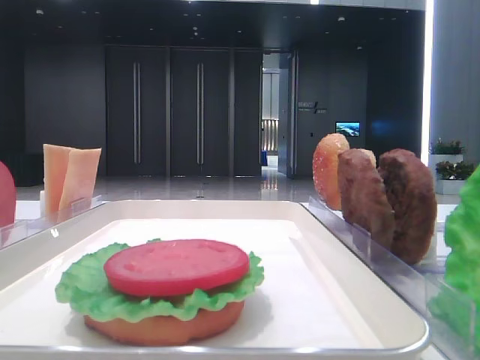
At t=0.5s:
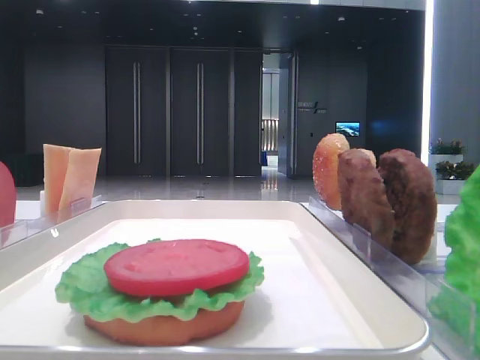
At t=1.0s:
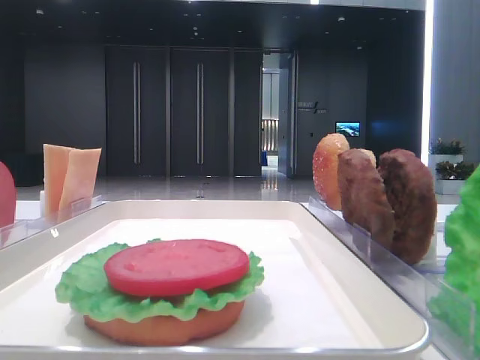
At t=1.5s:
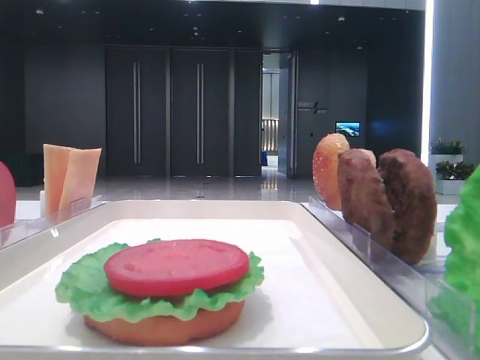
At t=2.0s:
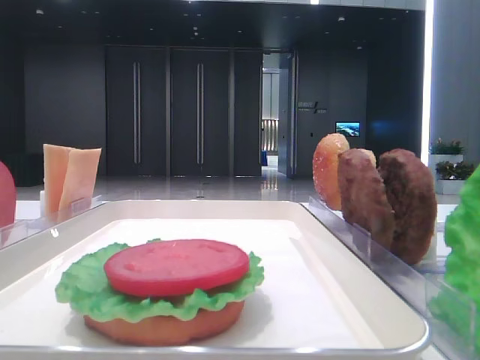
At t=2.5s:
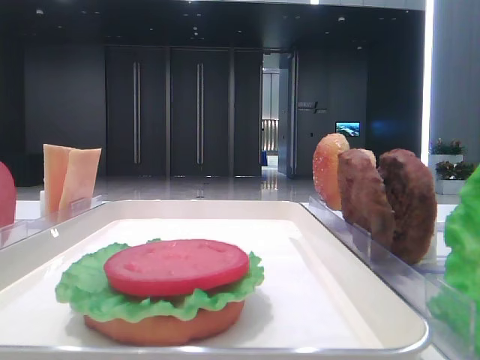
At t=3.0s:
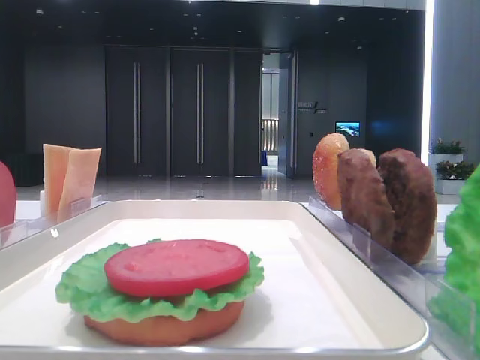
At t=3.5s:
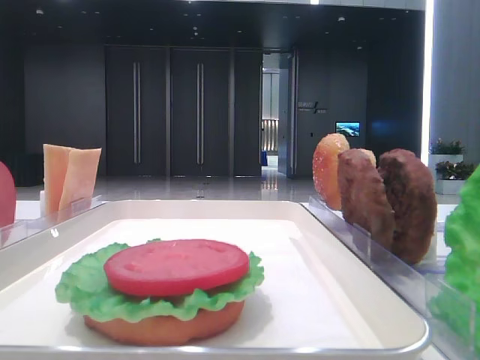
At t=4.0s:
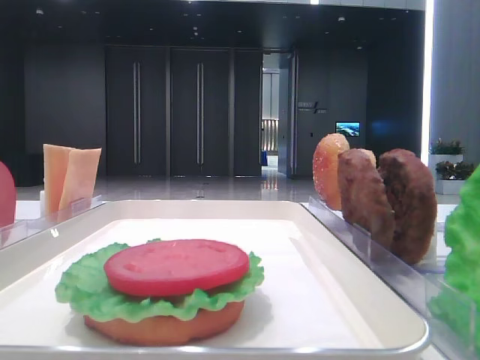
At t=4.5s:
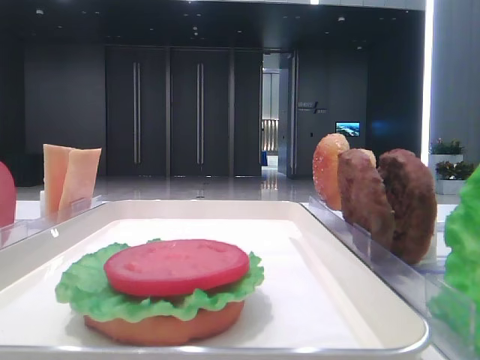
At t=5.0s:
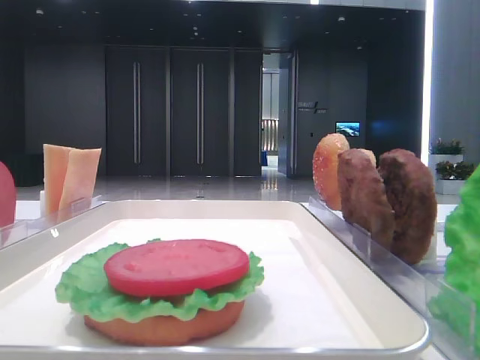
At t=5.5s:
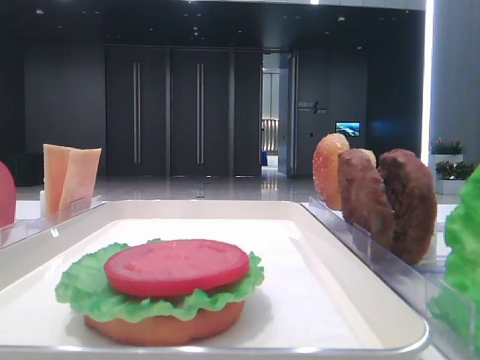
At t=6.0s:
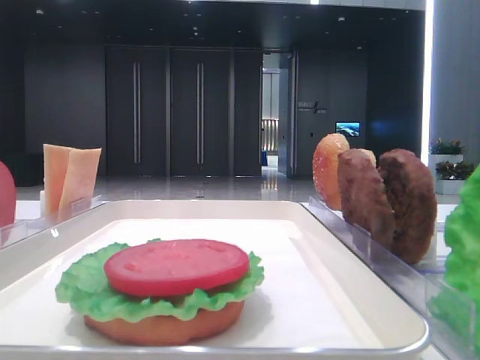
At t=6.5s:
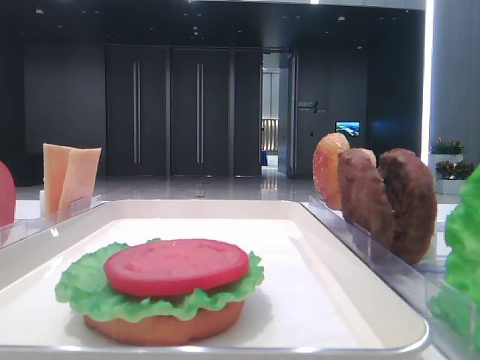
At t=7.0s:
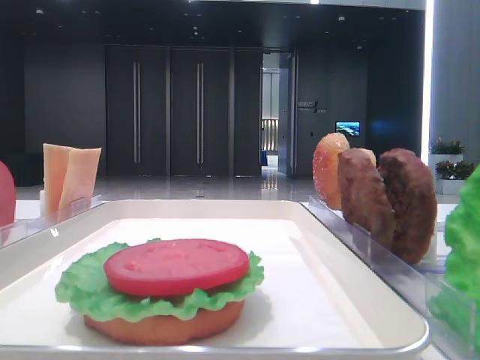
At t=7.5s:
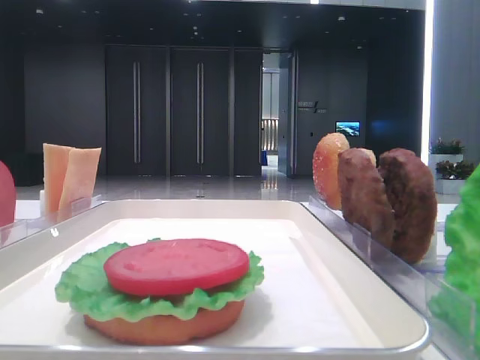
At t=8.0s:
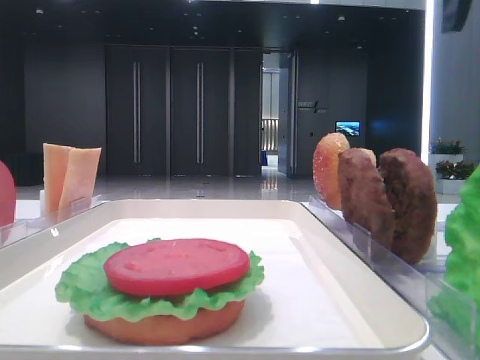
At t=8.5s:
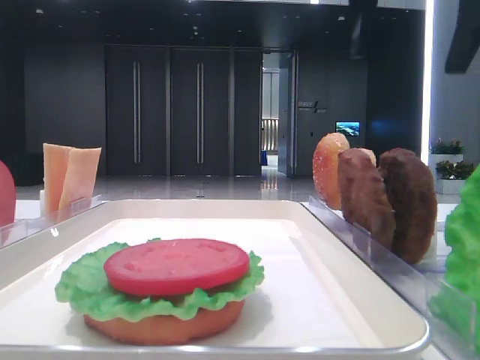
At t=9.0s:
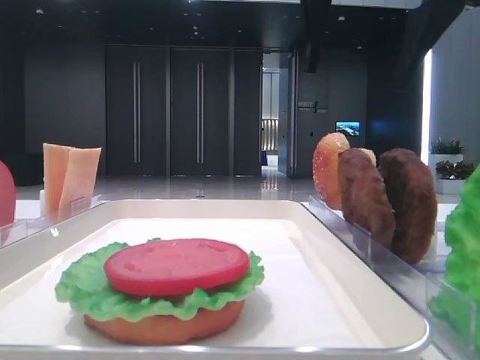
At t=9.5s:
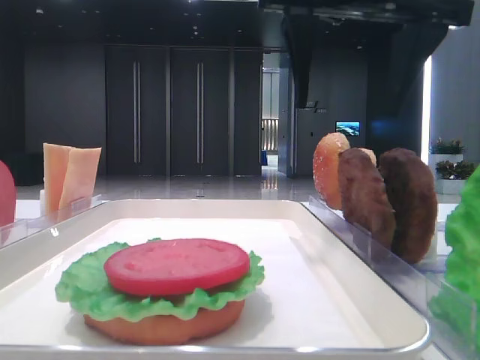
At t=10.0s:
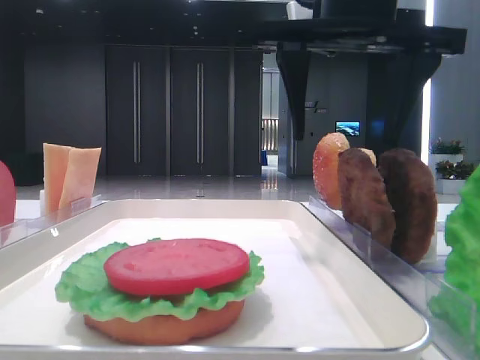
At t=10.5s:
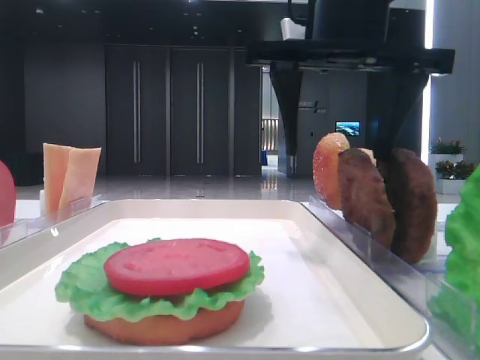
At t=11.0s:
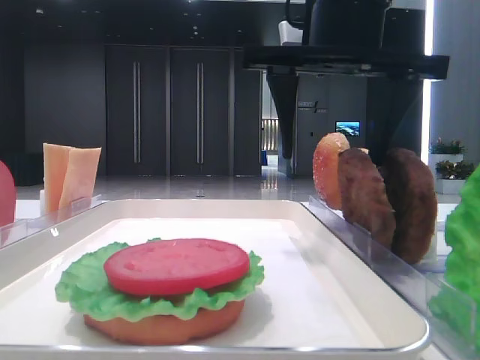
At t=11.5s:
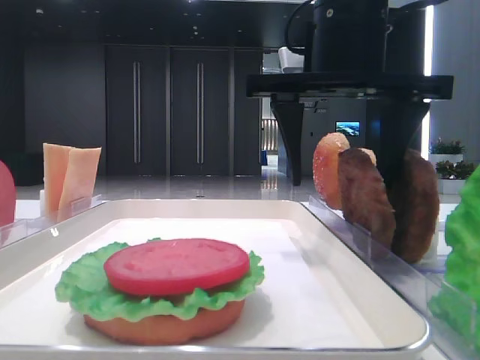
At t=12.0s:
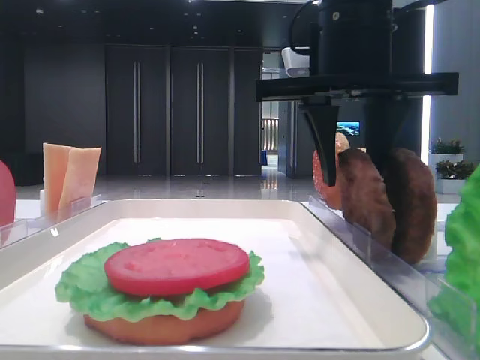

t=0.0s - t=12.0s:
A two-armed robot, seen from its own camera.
t=2.0s - t=4.0s: Both grippers stay put.
t=6.0s - t=8.0s: The right gripper shifts approximately 20 cm forward.
t=8.0s - t=10.0s: The right gripper shifts about 15 cm to the left and downward.
t=10.0s - t=12.0s: The right gripper closes.

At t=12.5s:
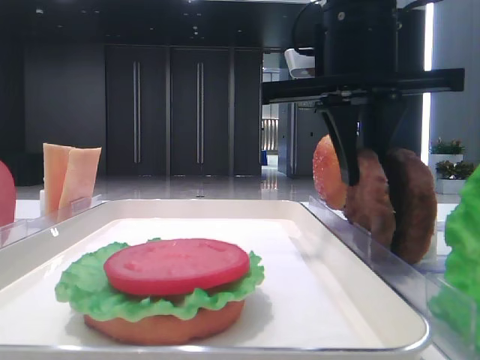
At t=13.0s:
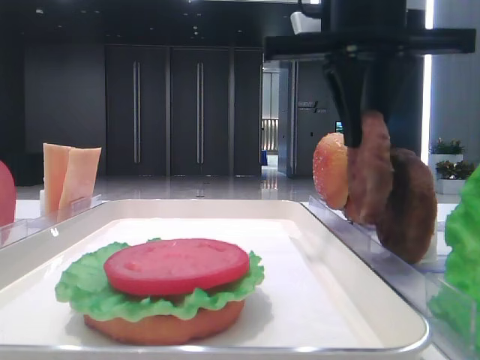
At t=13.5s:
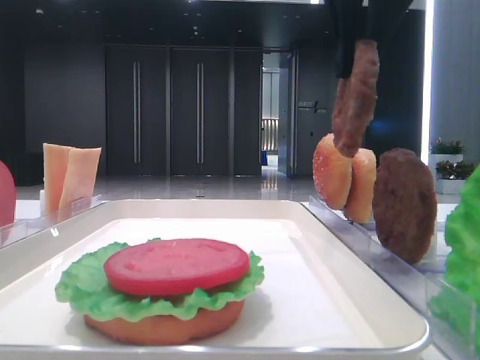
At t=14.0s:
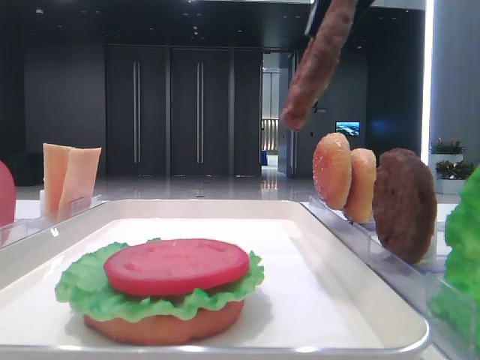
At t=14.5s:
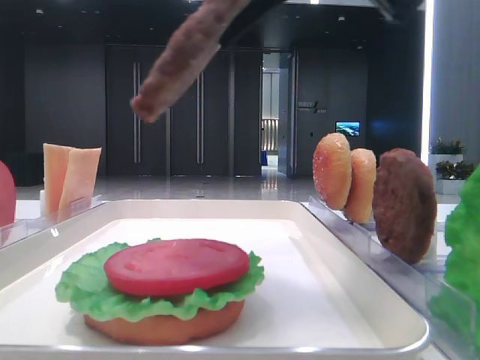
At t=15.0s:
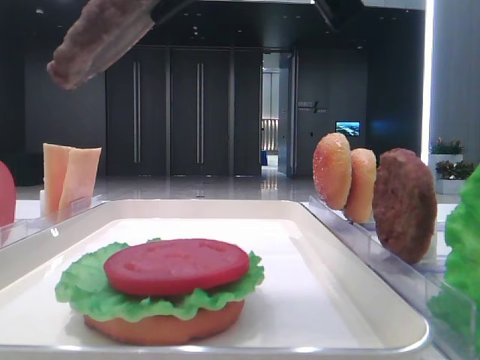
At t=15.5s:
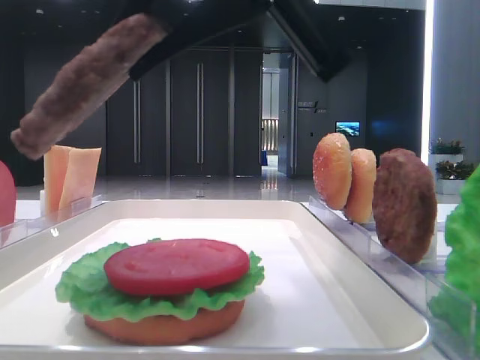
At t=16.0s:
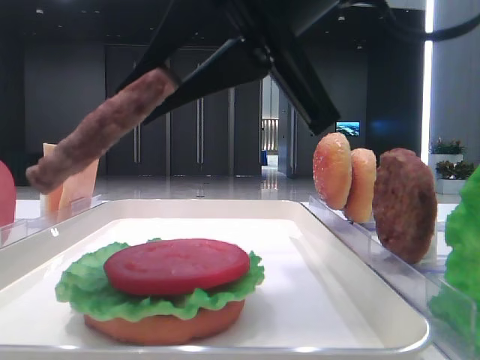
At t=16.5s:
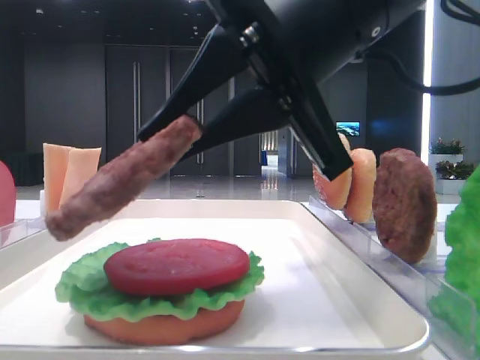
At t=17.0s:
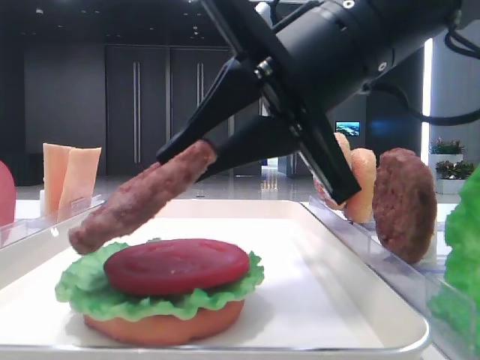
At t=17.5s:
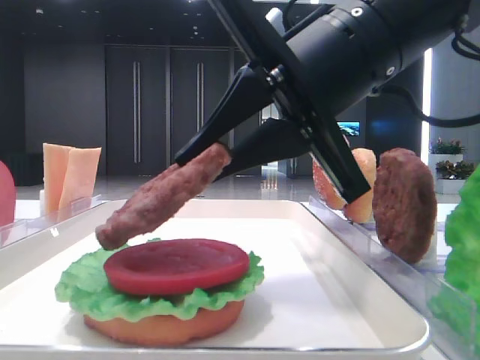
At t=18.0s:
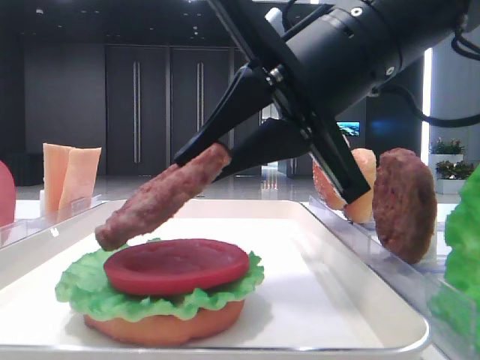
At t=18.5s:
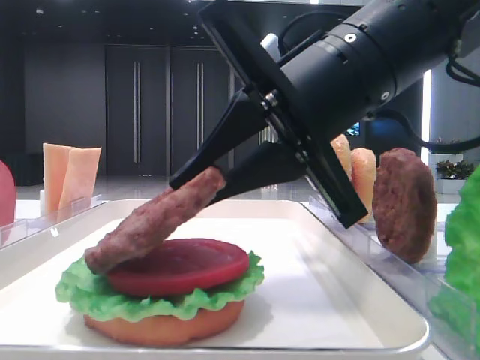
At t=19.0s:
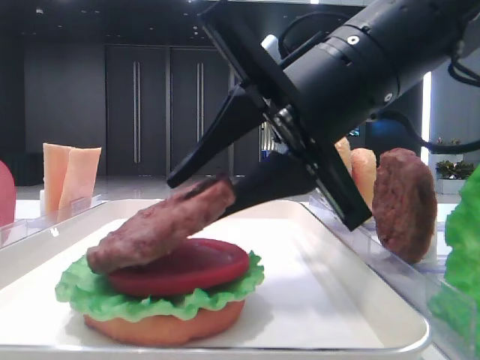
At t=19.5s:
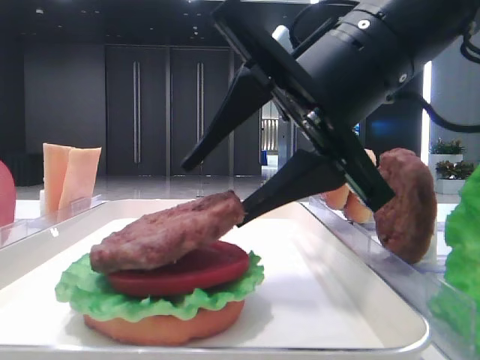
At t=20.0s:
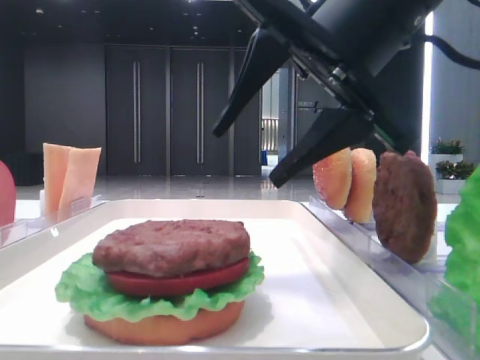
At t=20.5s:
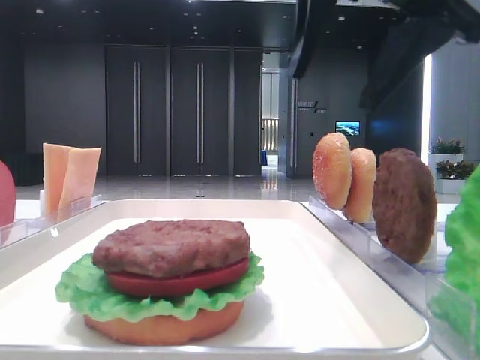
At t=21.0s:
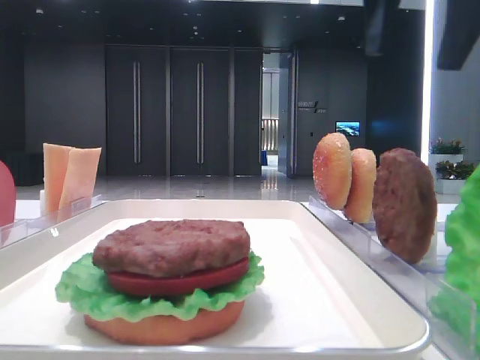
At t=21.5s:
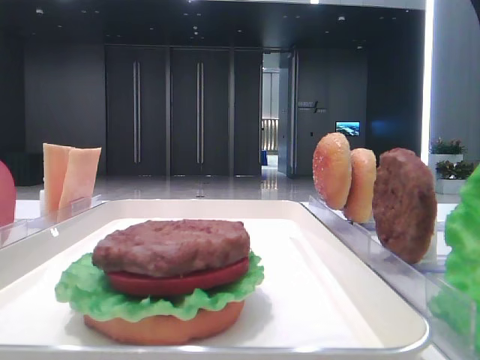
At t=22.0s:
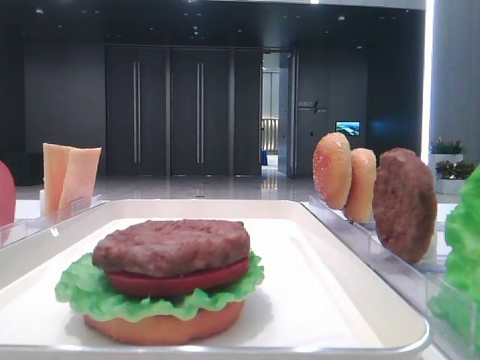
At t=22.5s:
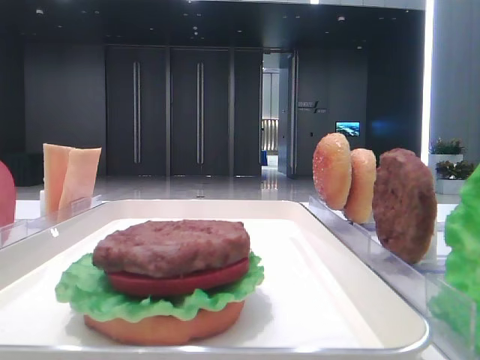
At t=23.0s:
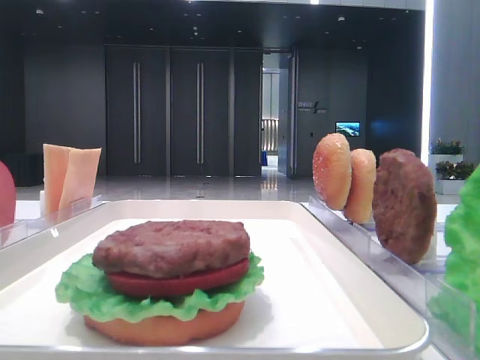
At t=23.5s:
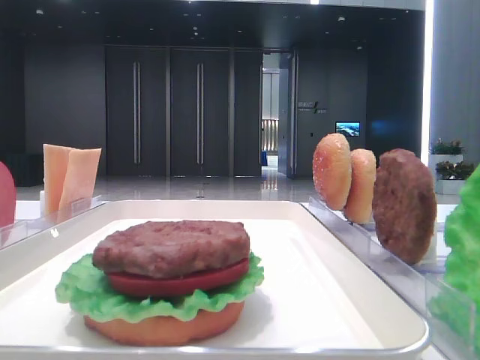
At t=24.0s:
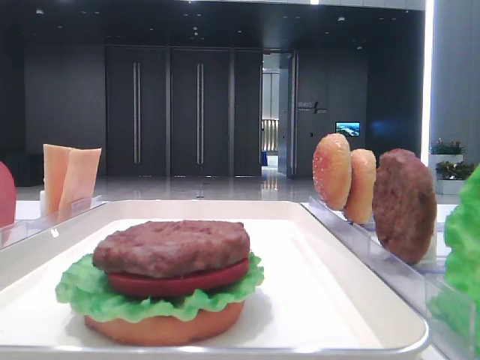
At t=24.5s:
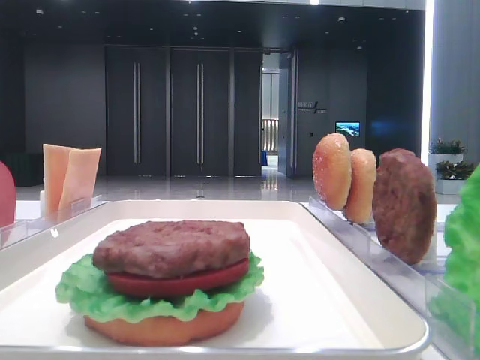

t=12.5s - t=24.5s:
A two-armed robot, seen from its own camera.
Step, t=13.0s - t=19.5s: Place the patty on the tomato slice with the right hand.
t=12.5s - t=14.5s: The right gripper travels backward and upward by roughly 15 cm.
t=14.5s - t=16.5s: The right gripper is displaced downward by about 10 cm.
t=18.5s - t=20.5s: The right gripper goes roughly 10 cm upward, and opens its fingers.
t=20.5s - t=22.5s: The right gripper heads to the right, backward and upward, covering some 20 cm.

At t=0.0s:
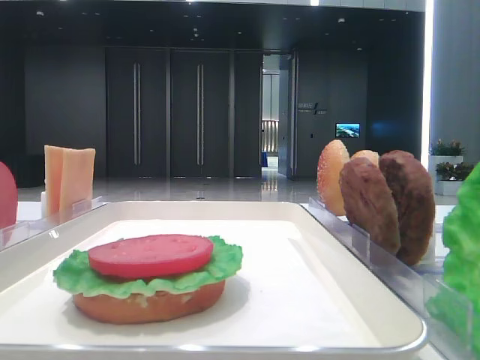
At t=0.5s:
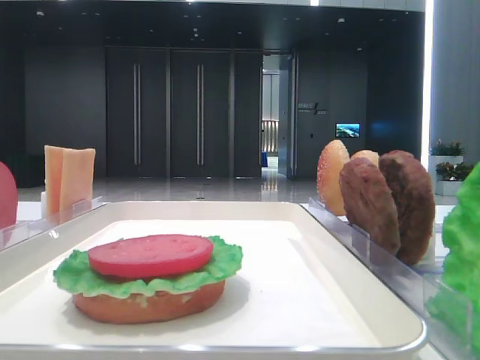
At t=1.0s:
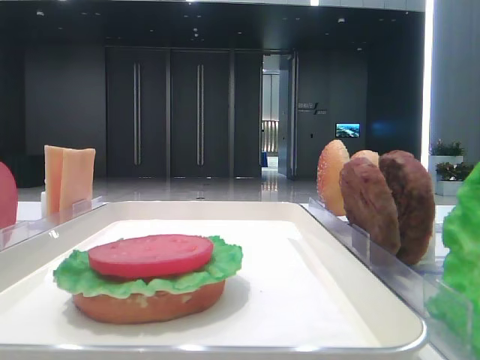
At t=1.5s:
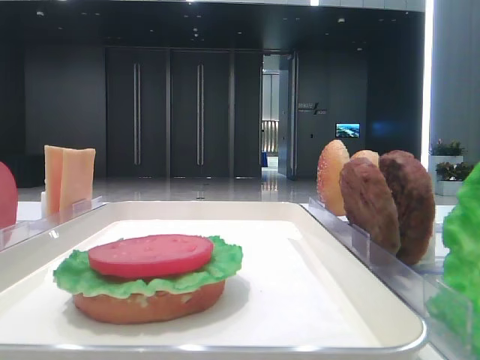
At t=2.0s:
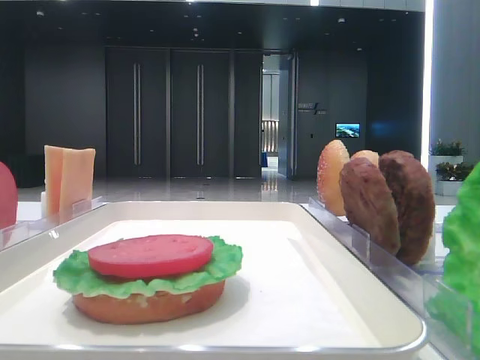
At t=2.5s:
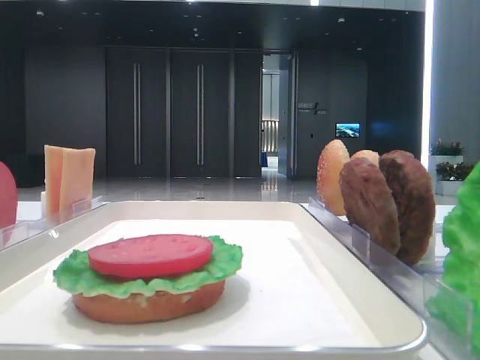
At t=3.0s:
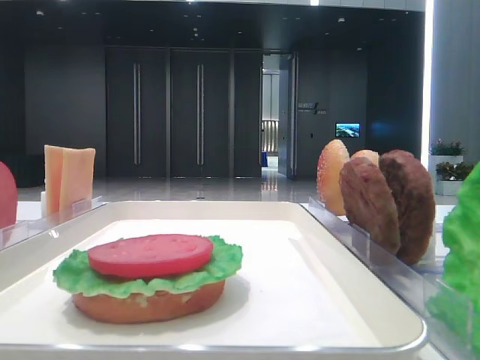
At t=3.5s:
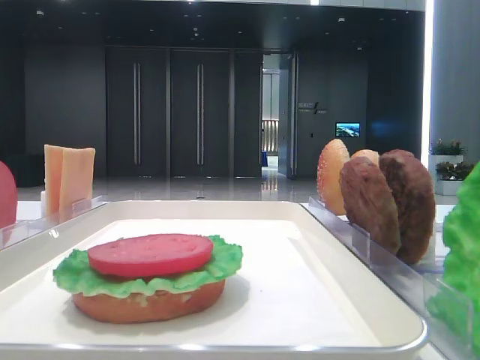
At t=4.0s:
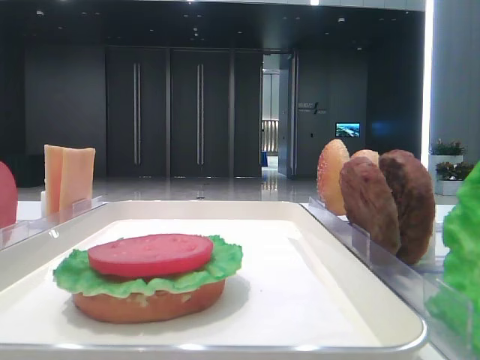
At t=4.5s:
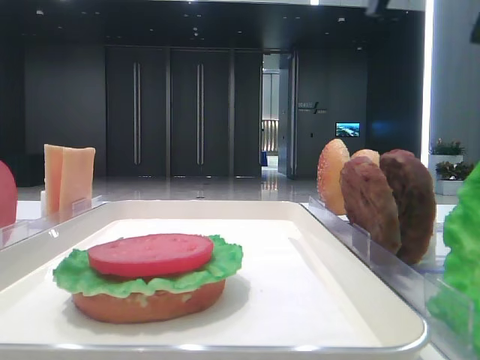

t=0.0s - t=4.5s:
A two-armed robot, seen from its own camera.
t=2.0s - t=4.5s: The right gripper moves forward and to the left, approximately 30 cm.
